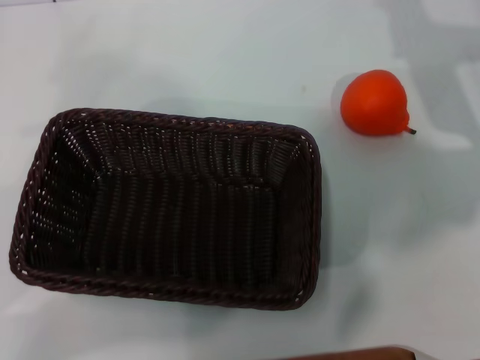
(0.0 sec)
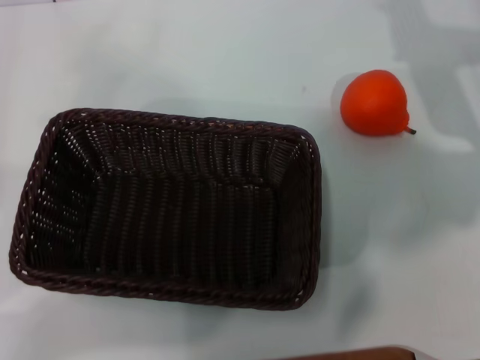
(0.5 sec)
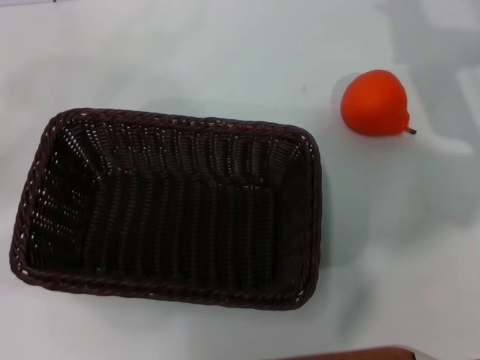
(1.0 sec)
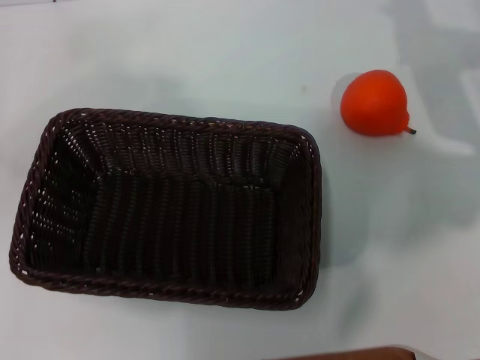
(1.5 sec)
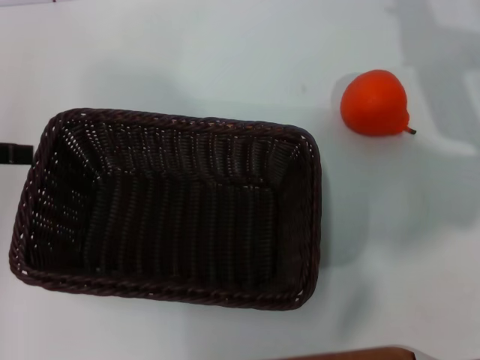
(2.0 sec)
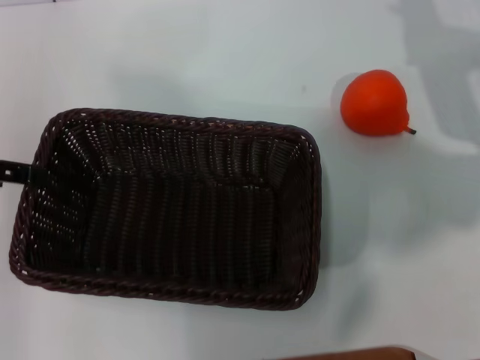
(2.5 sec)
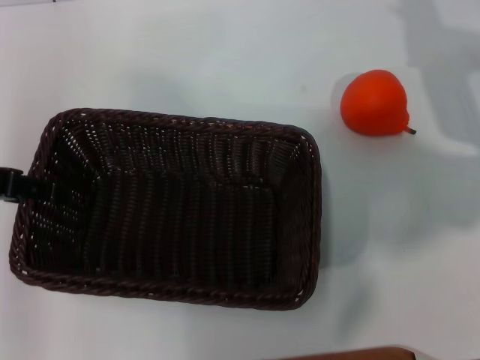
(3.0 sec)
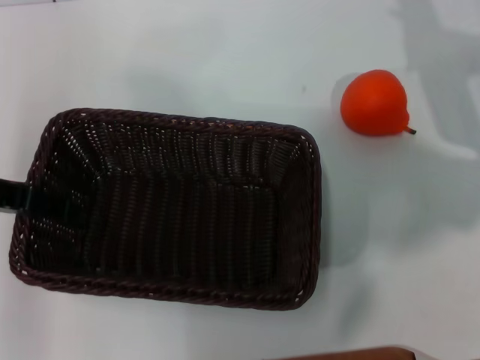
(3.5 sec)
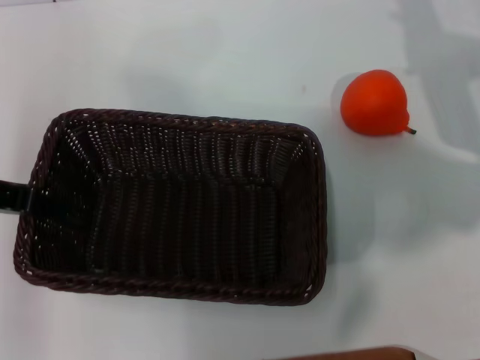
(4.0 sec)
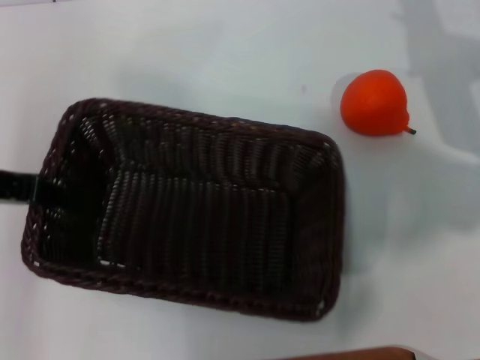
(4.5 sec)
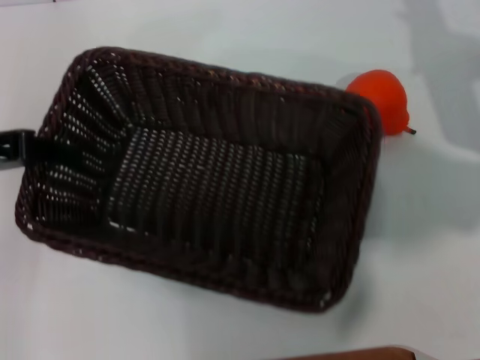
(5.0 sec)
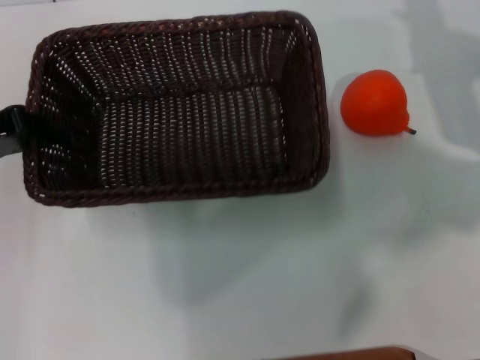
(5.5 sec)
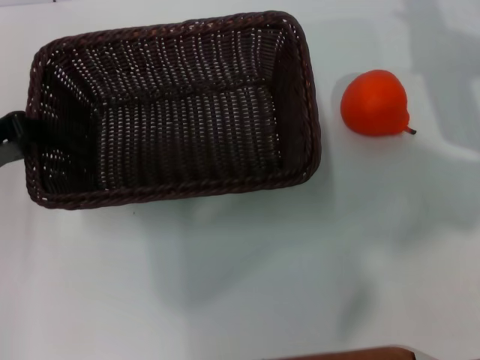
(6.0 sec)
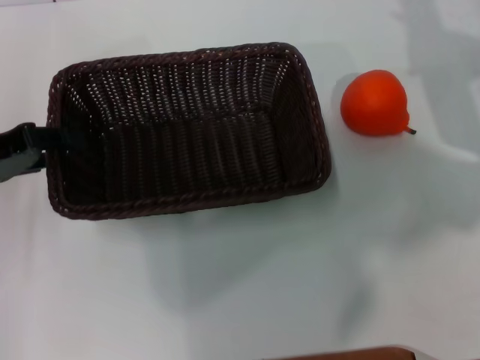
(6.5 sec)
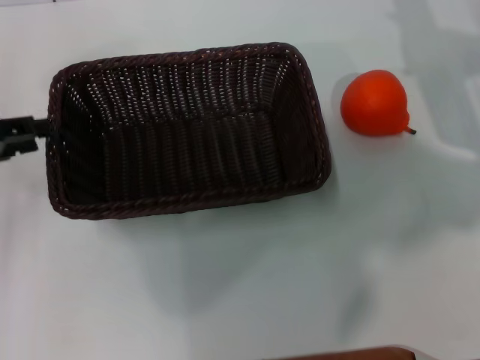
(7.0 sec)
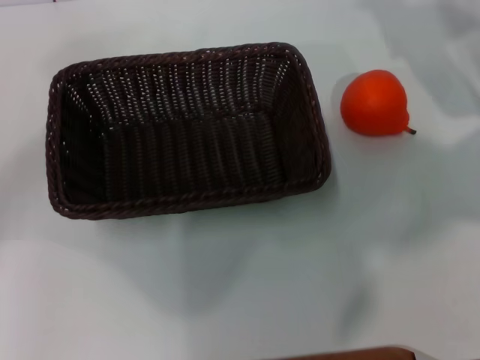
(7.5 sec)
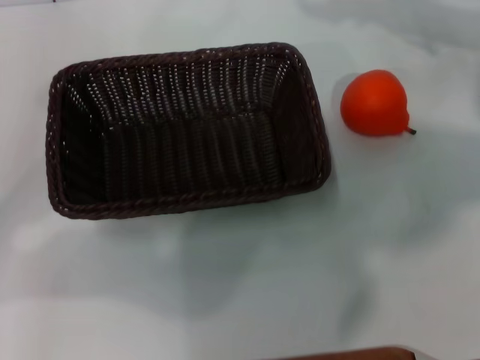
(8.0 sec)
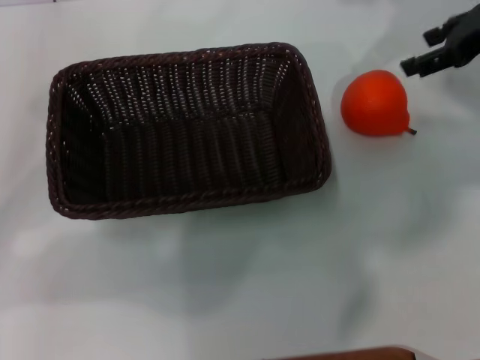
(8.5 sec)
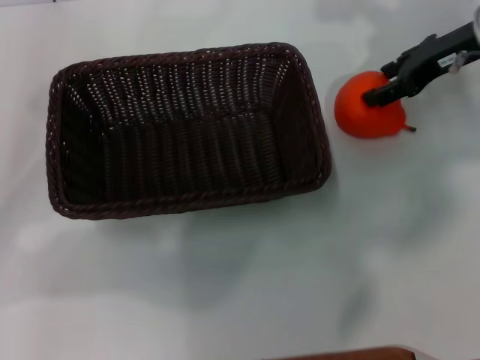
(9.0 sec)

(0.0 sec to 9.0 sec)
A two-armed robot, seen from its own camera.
Task of the whole recording: the left gripper pick up the black basket and place it horizontally in the middle of the table, the right gripper pick up the orange and place it into the black basket.
Step, 0.0 sec - 4.5 sec: Pick up the dark basket with the left gripper.
Step, 5.0 sec - 7.0 sec: Place the dark basket in the center of view with the left gripper.
0.0 sec - 2.0 sec: The left gripper goes approximately 15 cm upward and forward, and opens up.
2.0 sec - 4.5 sec: The left gripper is displaced to the right by approximately 5 cm, and closes its fingers.
4.5 sec - 7.0 sec: The left gripper shifts by about 5 cm, and opens its fingers.
7.0 sec - 9.0 sec: The right gripper heads forward, covering about 5 cm; the left gripper opens.

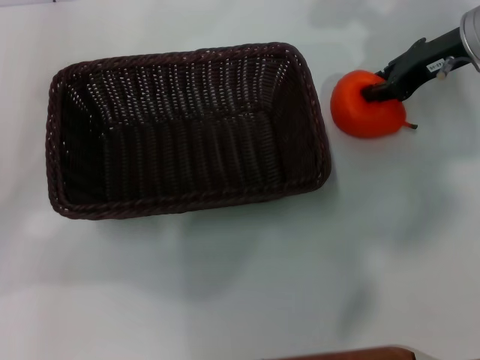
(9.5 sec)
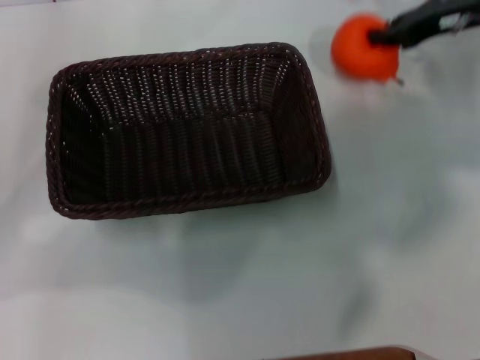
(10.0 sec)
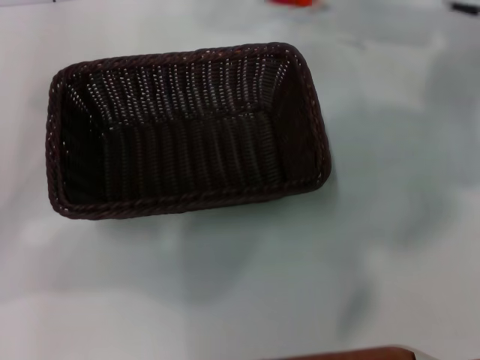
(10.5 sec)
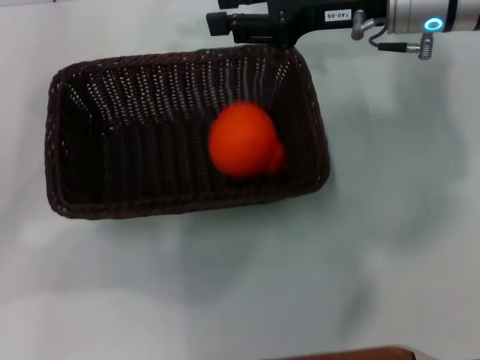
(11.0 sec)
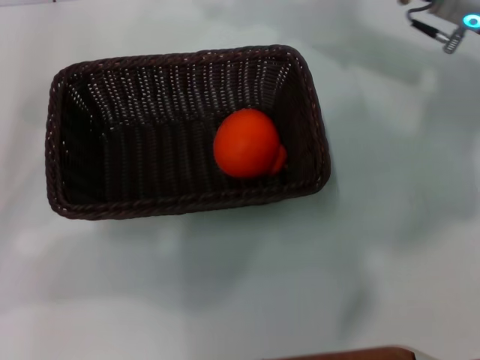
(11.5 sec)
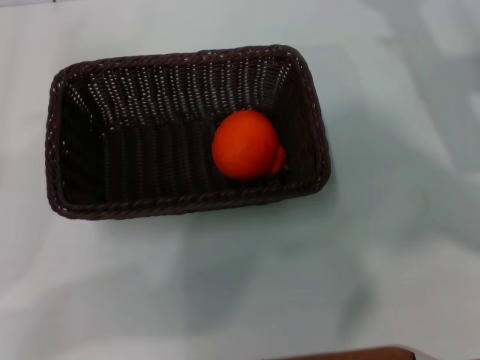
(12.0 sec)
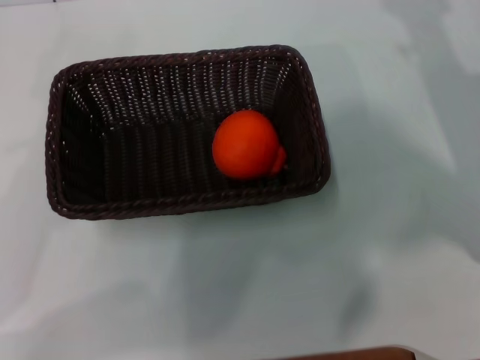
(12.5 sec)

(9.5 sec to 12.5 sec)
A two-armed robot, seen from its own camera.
Task of the whole recording: the left gripper pick up the black basket and place it horizontally in the middle of the table, the right gripper pick up the orange and place it into the black basket.
9.5 sec - 11.0 sec: The right gripper moves to the left, about 10 cm.
11.0 sec - 12.5 sec: The right gripper moves to the right, backward and downward, roughly 15 cm, and opens its fingers, while the left gripper moves backward, some 10 cm.

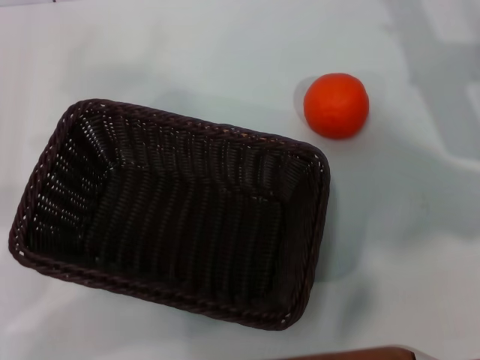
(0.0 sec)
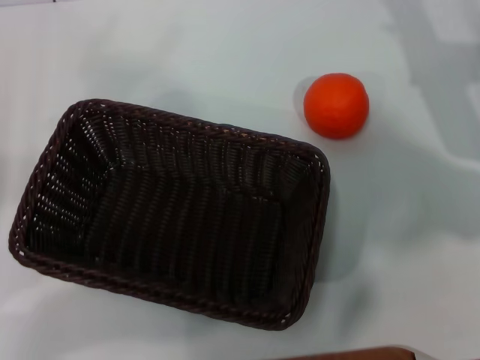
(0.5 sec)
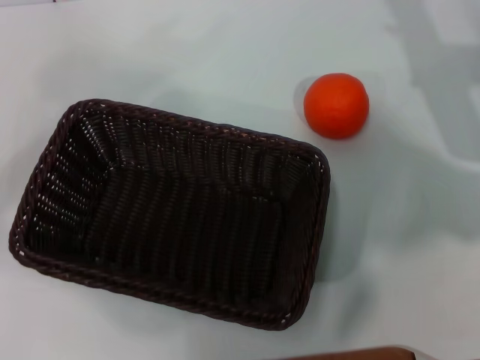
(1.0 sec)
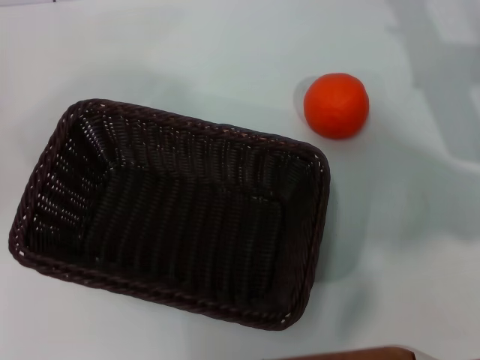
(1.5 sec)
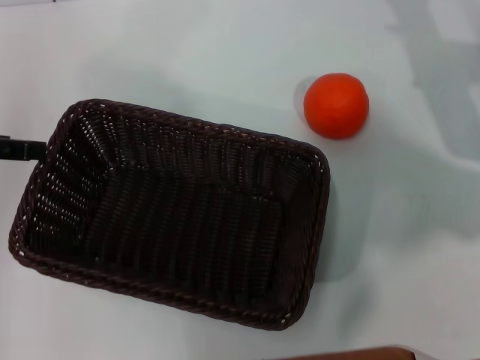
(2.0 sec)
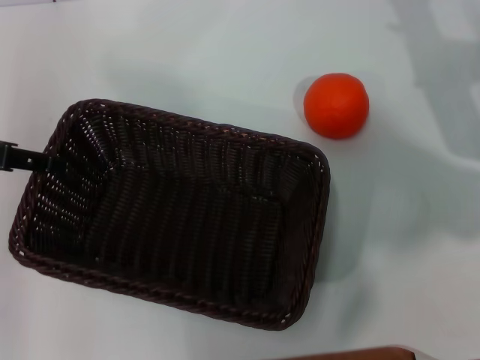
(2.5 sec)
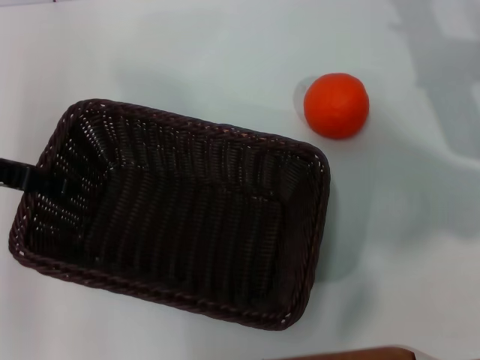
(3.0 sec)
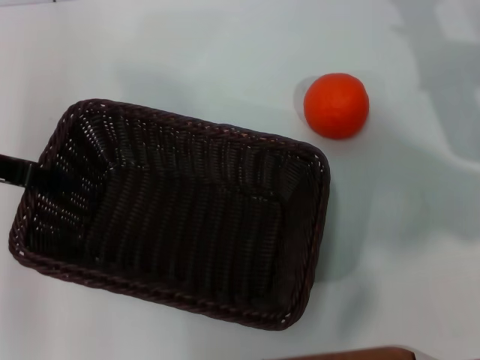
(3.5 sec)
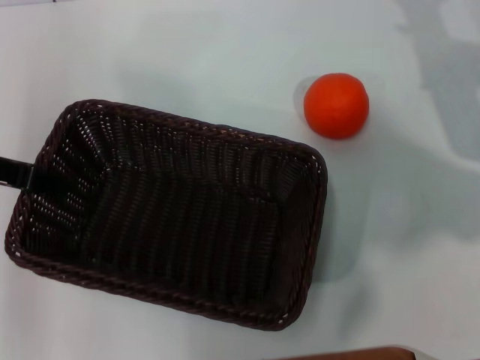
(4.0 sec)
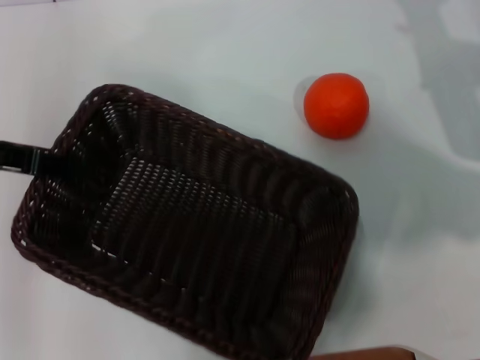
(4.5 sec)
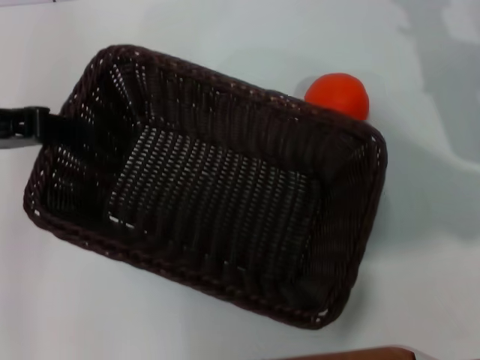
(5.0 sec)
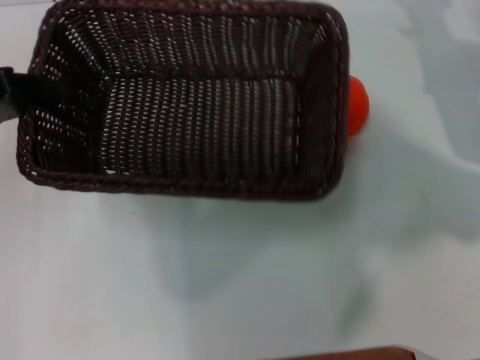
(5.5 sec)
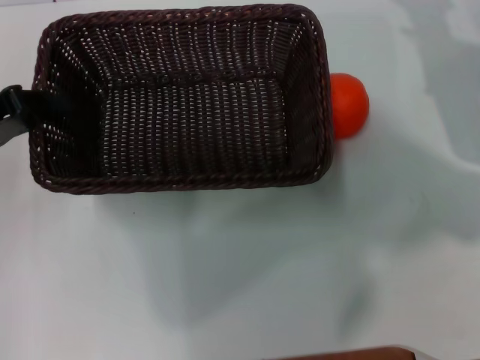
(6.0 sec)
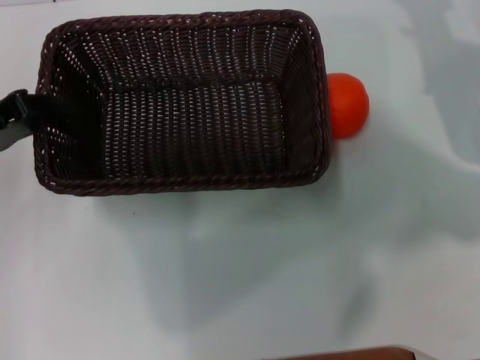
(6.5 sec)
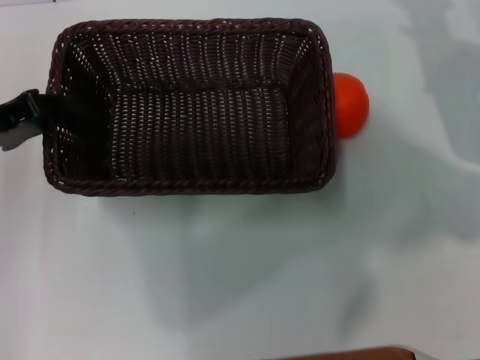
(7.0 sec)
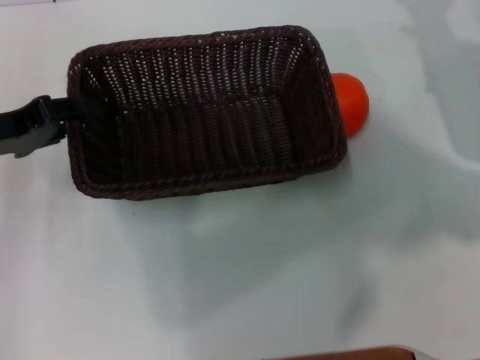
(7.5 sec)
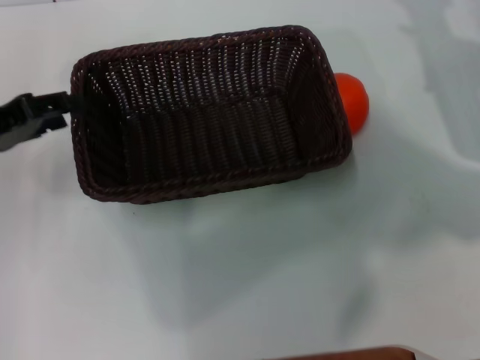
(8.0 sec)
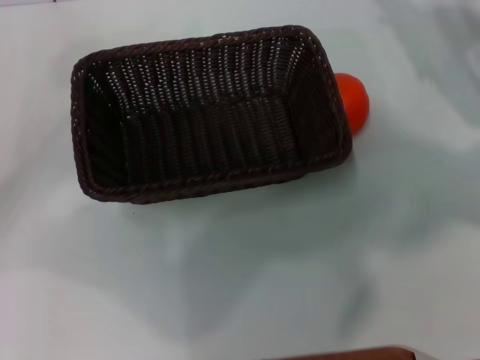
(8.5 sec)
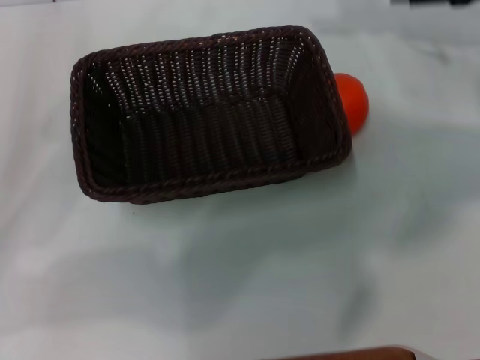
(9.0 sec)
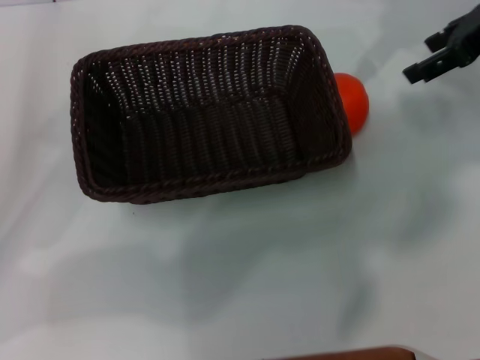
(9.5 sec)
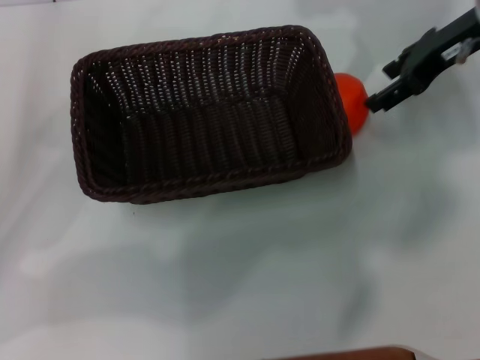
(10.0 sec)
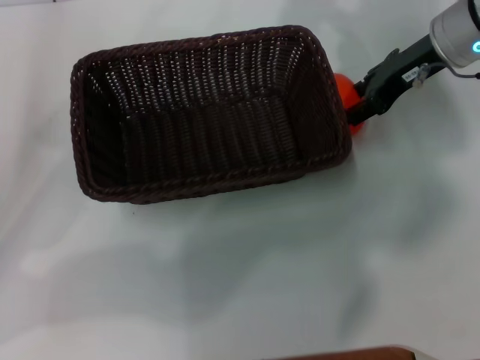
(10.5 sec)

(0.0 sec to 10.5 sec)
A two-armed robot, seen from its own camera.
Task of the whole recording: the left gripper pick up the black basket and place it horizontally in the middle of the table, the right gripper pick up the orange and place it into the black basket.
Step, 0.0 sec - 4.5 sec: Pick up the dark basket with the left gripper.
Step, 5.0 sec - 7.5 sec: Place the dark basket in the center of view with the left gripper.
0.0 sec - 2.0 sec: The left gripper goes roughly 15 cm upward and forward.
2.0 sec - 4.0 sec: The left gripper ends up approximately 5 cm from where it was, and closes its fingers.
6.5 sec - 8.5 sec: The left gripper is displaced to the left by approximately 5 cm, and opens its fingers.
8.5 sec - 10.5 sec: The right gripper heads to the left, covering about 10 cm.

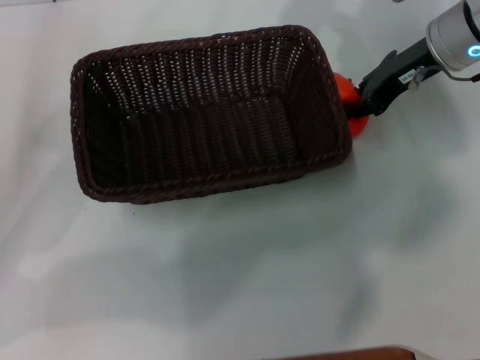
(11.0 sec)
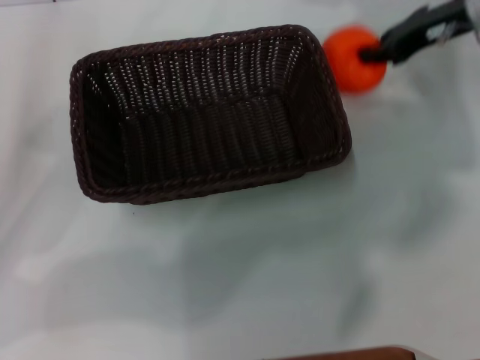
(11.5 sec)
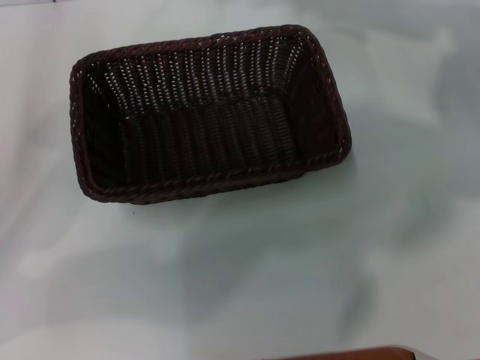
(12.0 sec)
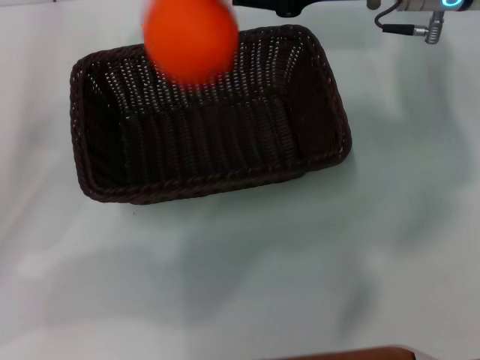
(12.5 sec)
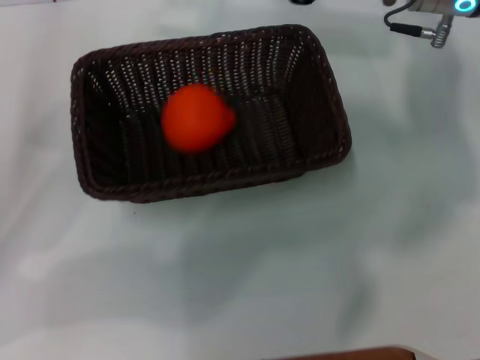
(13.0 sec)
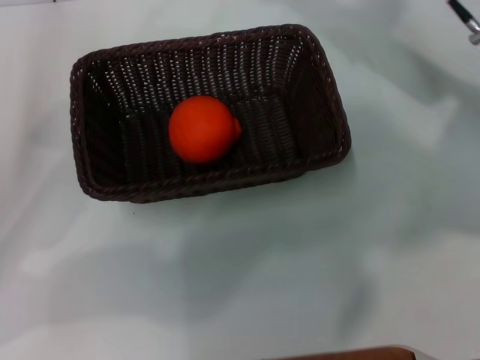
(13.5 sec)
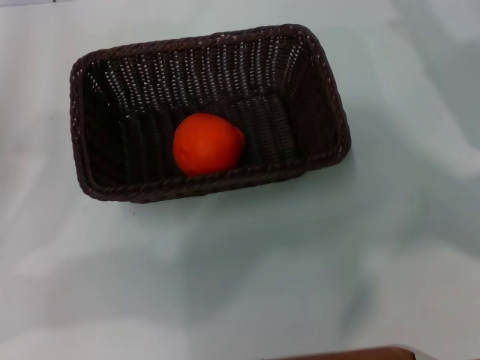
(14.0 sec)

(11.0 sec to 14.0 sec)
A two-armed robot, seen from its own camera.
Task of the whole recording: the left gripper pick up the black basket and place it horizontally in the middle of the table, the right gripper pick up the orange and place it into the black basket.
Step, 11.5 sec - 12.5 sec: Place the orange into the dark basket with the right gripper.
11.0 sec - 12.5 sec: The right gripper goes roughly 10 cm upward and to the left.
12.5 sec - 14.0 sec: The right gripper is displaced to the right, downward and backward by roughly 15 cm, and opens up.
